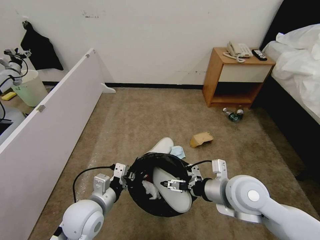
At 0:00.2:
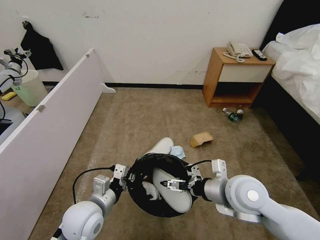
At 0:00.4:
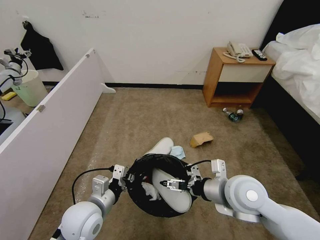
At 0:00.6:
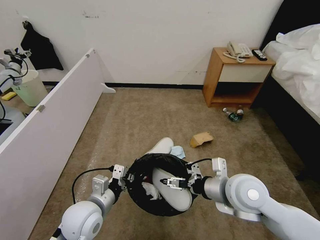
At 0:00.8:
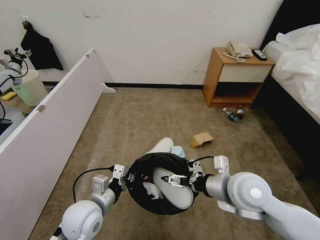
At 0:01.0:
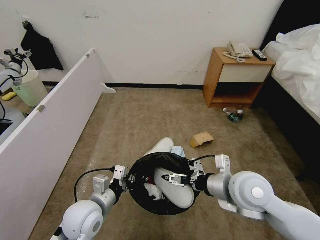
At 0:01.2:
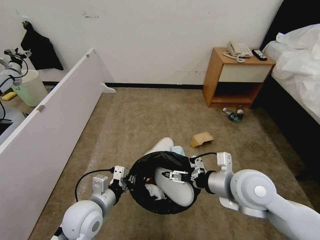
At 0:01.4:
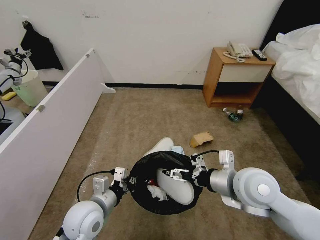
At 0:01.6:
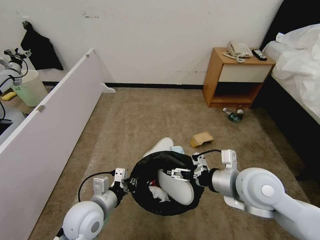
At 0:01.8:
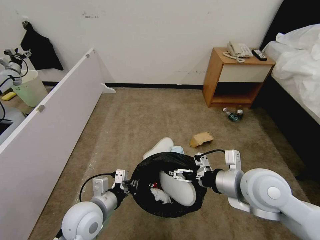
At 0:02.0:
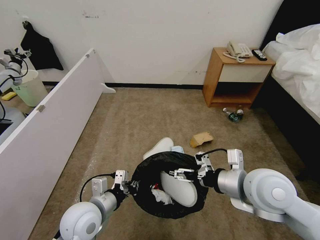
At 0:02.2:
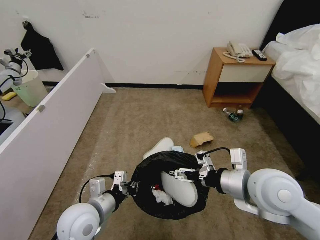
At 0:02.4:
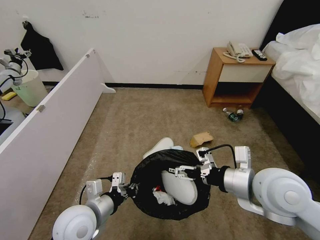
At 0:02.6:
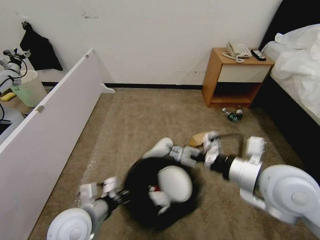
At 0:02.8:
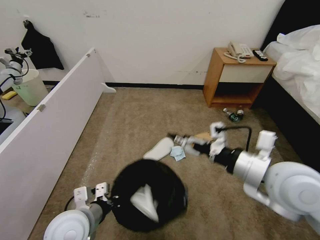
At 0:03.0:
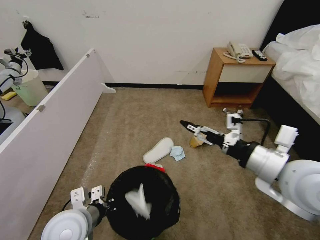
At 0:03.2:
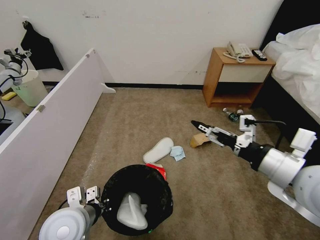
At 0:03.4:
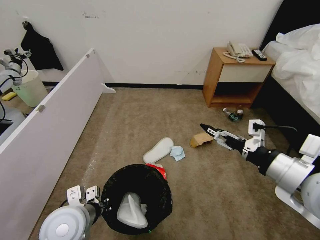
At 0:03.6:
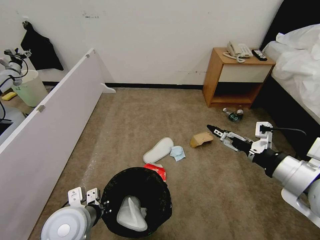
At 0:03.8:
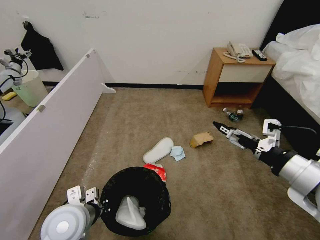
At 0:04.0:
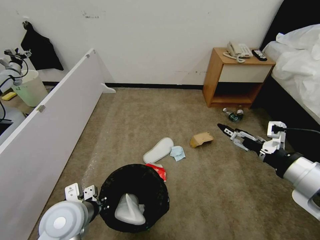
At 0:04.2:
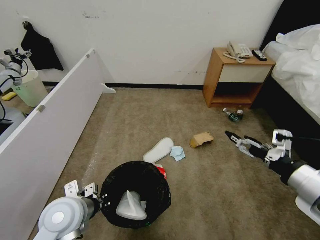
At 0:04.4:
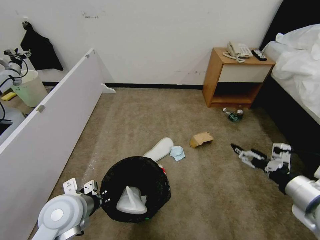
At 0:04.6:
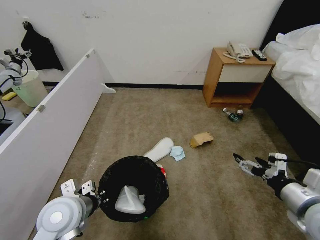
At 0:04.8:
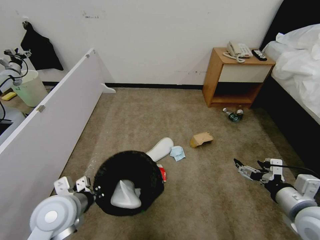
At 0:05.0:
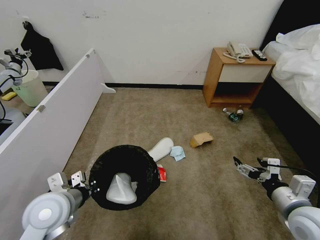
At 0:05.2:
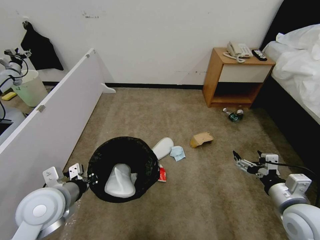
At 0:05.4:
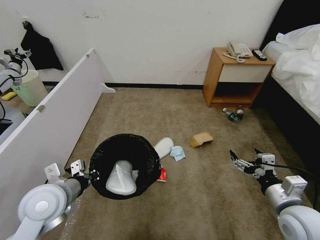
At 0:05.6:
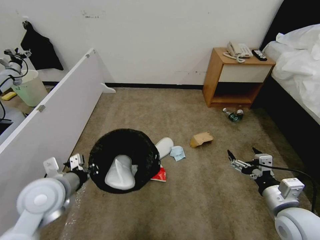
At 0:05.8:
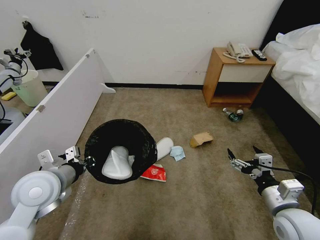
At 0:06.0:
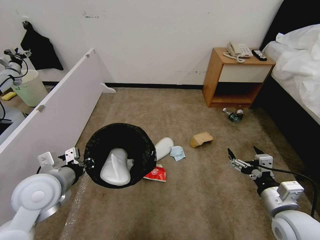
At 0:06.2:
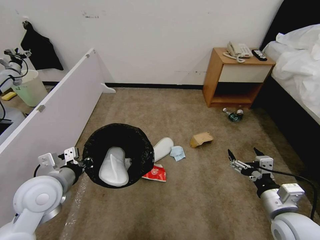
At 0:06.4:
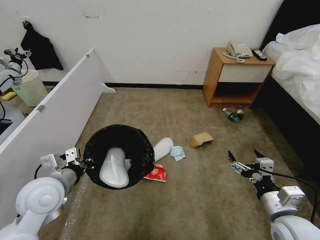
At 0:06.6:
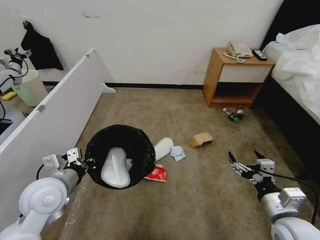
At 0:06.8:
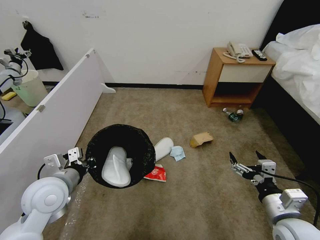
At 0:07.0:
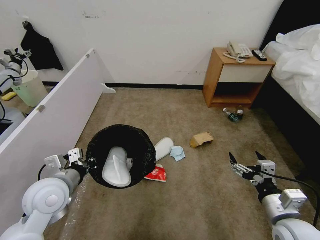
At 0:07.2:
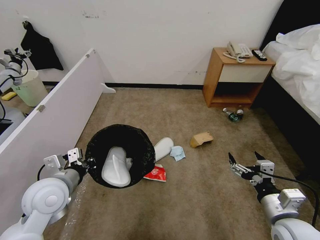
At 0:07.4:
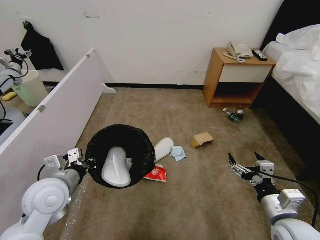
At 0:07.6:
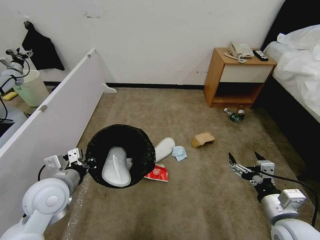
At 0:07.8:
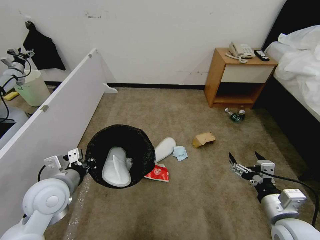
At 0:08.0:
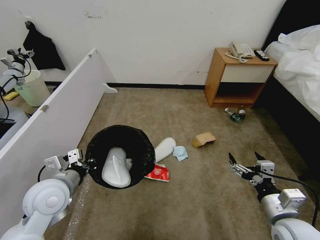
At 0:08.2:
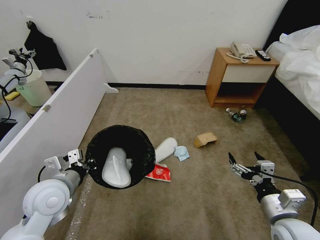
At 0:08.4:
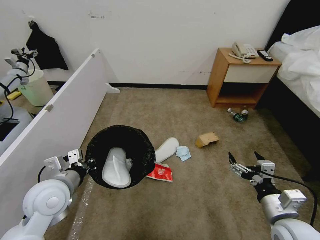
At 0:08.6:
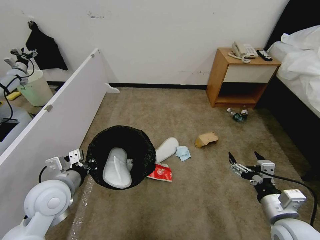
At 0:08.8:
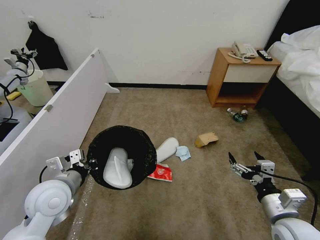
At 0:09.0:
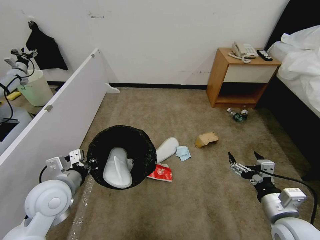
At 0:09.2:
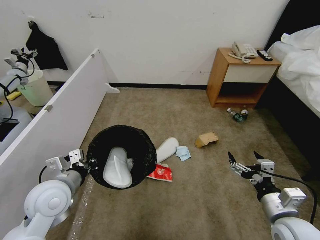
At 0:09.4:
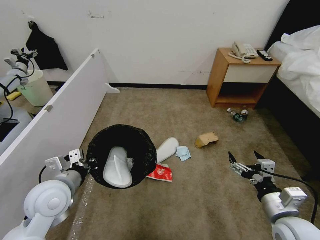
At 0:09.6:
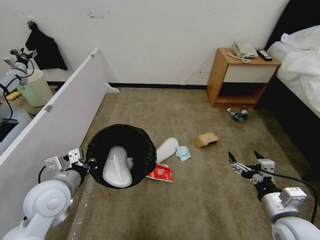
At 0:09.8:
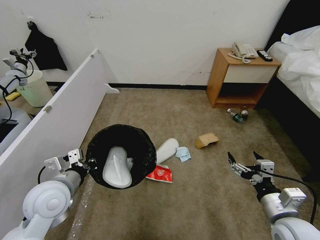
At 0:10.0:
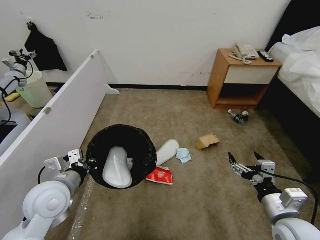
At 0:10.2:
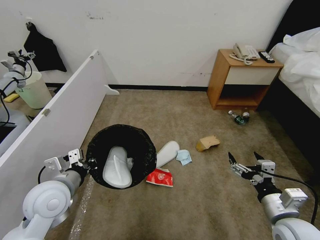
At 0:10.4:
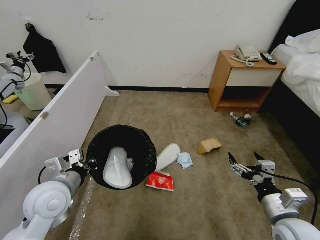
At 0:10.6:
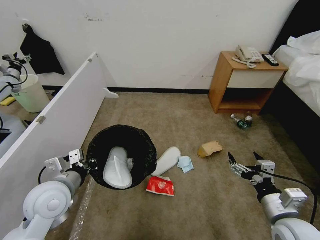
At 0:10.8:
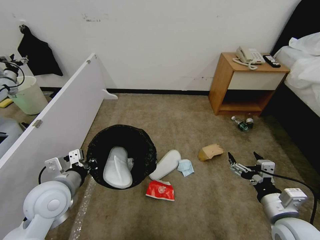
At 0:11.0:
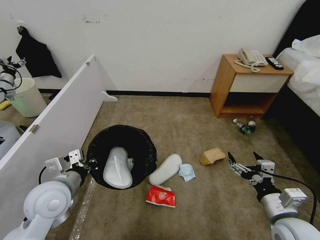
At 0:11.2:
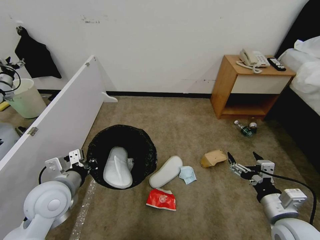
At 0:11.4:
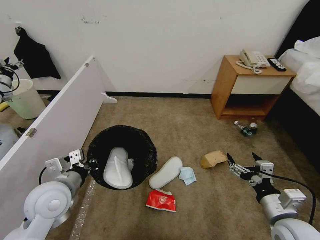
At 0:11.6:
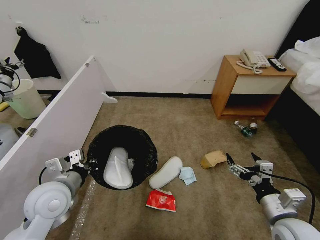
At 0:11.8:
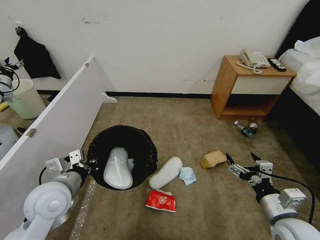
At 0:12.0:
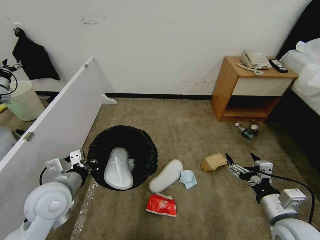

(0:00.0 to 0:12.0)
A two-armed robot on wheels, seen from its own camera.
Task of the whole recording: Pick up the trash bin, then pick up the garbage from the floor and place it into the trash bin.
0:00.0 - 0:01.6: The grippers stay close to where they were, moving slightly.
0:01.6 - 0:03.0: The right gripper heads upward, covering roughly 10 cm.
0:03.0 - 0:04.4: The right gripper heads to the right and backward, covering about 10 cm.
0:04.4 - 0:06.0: The left gripper travels upward and to the left by approximately 5 cm; the right gripper heads downward, covering roughly 10 cm.
0:06.0 - 0:07.6: The grippers make only small movements.
0:07.6 - 0:10.4: The two grippers keep their place.

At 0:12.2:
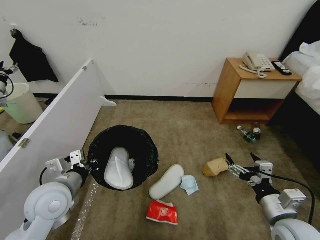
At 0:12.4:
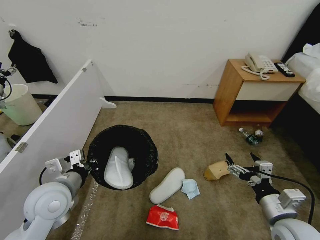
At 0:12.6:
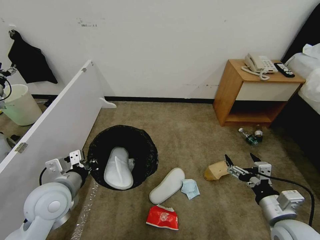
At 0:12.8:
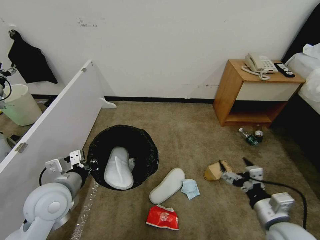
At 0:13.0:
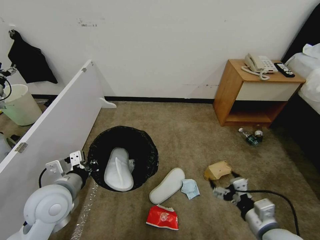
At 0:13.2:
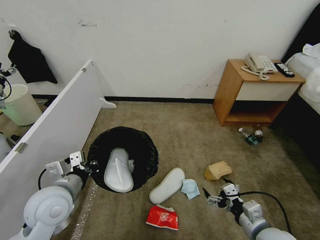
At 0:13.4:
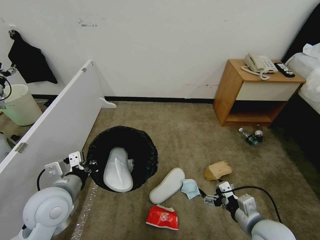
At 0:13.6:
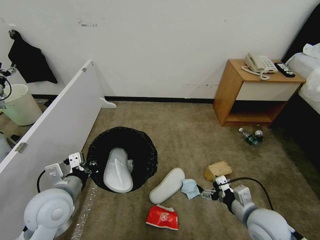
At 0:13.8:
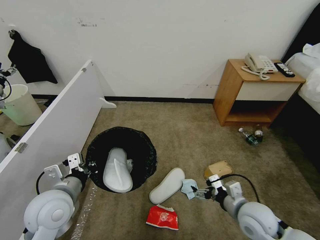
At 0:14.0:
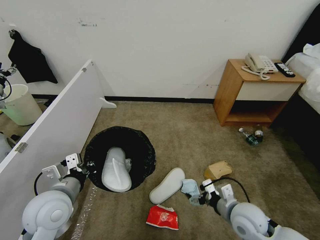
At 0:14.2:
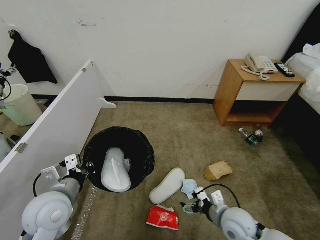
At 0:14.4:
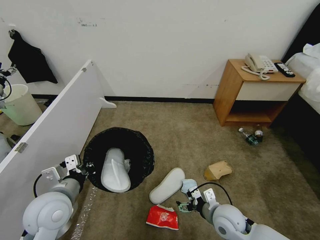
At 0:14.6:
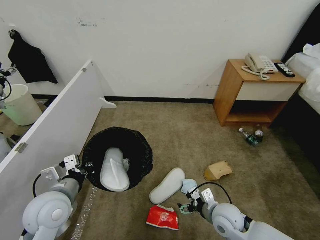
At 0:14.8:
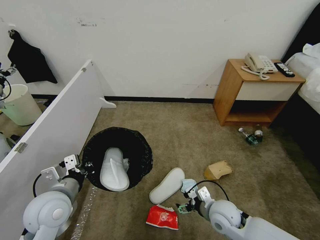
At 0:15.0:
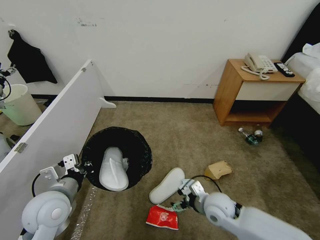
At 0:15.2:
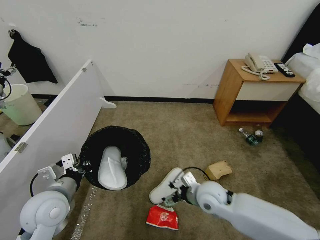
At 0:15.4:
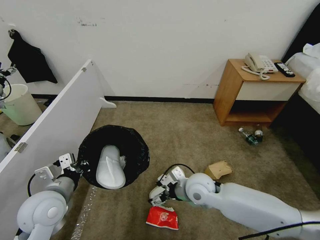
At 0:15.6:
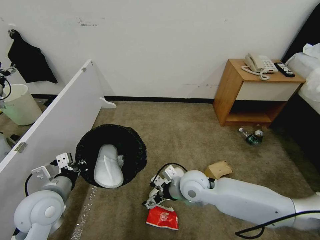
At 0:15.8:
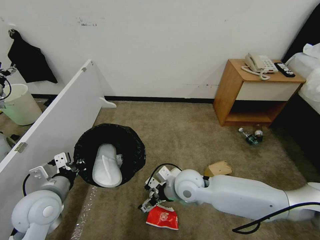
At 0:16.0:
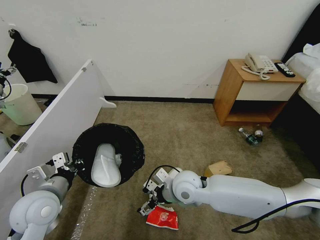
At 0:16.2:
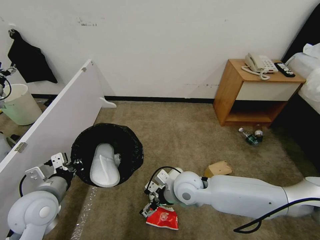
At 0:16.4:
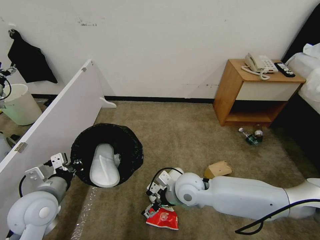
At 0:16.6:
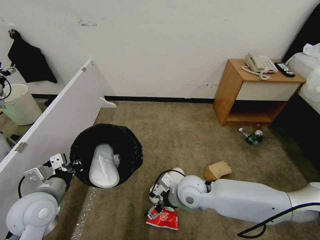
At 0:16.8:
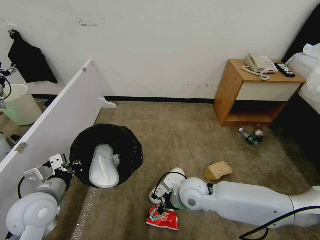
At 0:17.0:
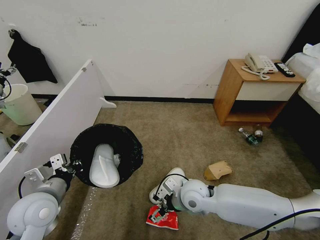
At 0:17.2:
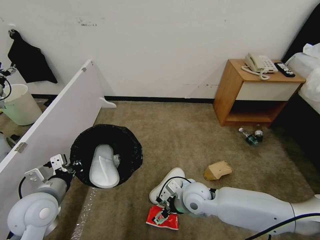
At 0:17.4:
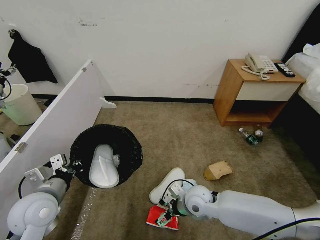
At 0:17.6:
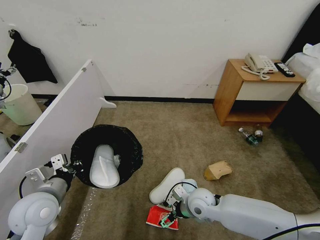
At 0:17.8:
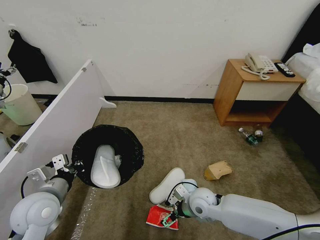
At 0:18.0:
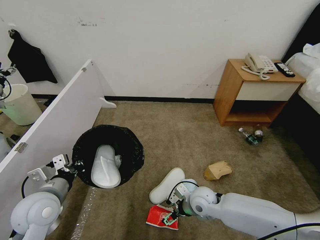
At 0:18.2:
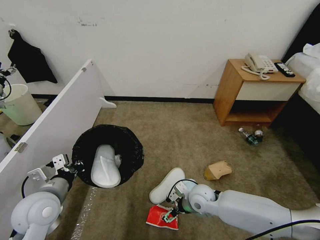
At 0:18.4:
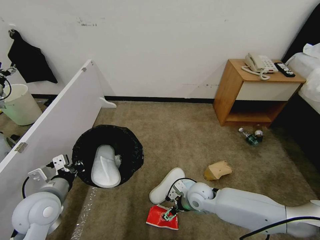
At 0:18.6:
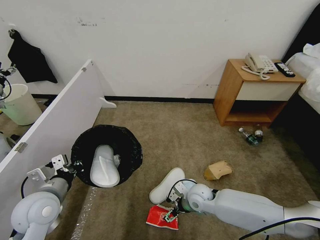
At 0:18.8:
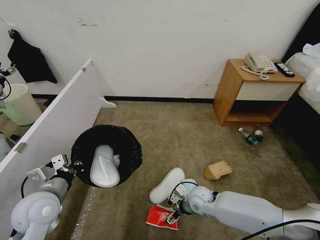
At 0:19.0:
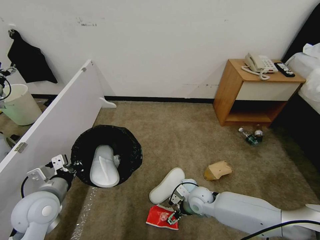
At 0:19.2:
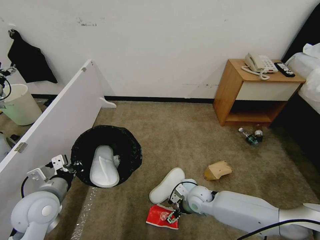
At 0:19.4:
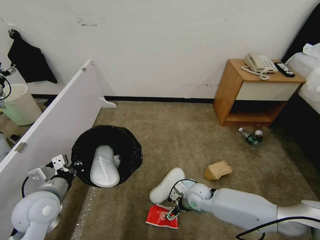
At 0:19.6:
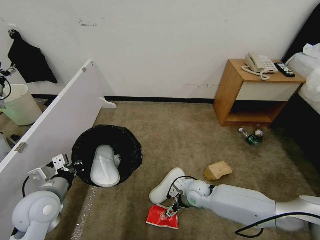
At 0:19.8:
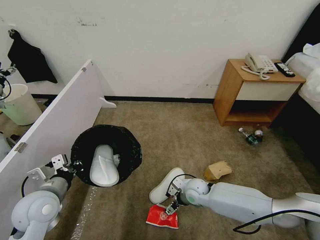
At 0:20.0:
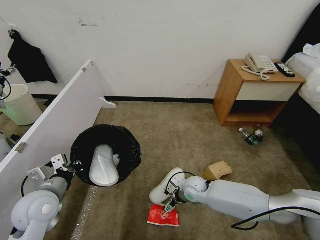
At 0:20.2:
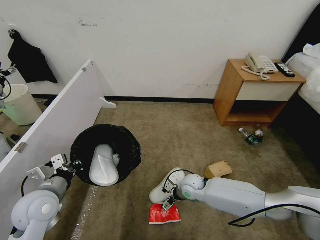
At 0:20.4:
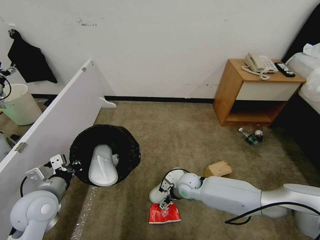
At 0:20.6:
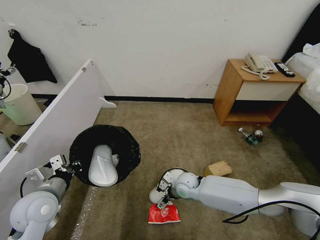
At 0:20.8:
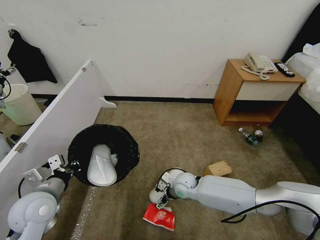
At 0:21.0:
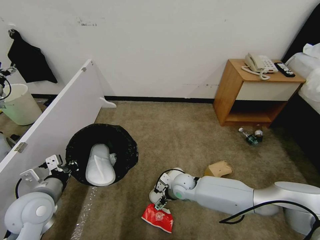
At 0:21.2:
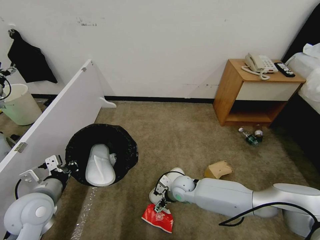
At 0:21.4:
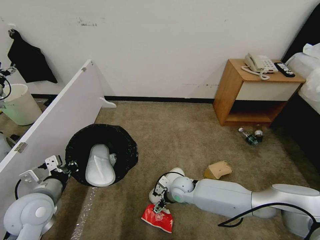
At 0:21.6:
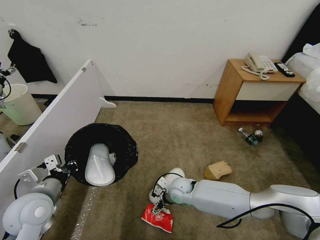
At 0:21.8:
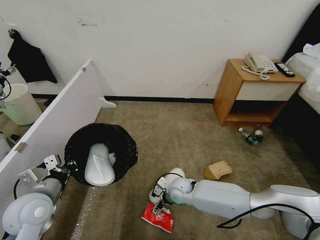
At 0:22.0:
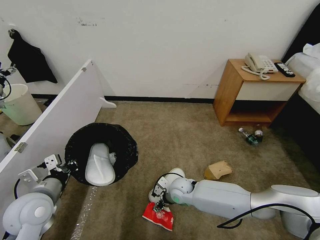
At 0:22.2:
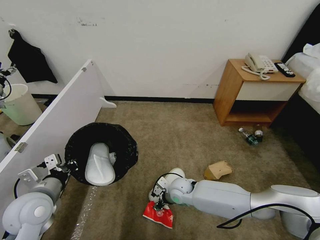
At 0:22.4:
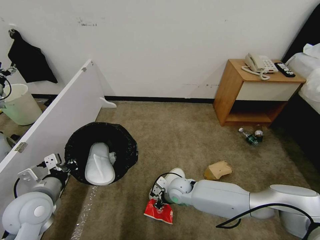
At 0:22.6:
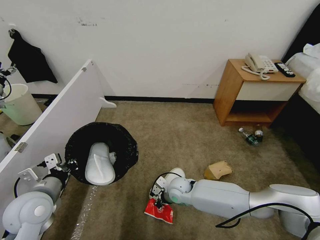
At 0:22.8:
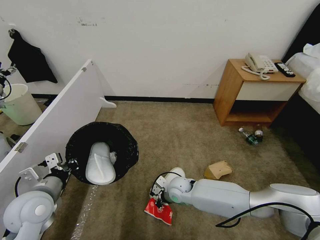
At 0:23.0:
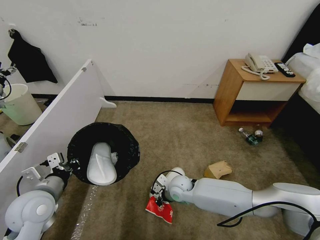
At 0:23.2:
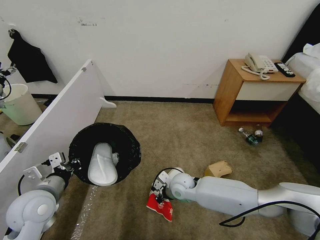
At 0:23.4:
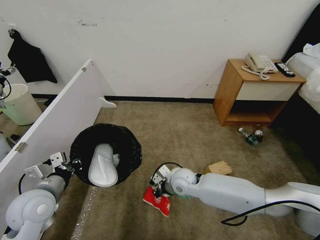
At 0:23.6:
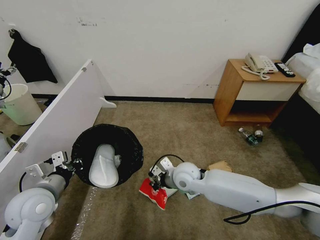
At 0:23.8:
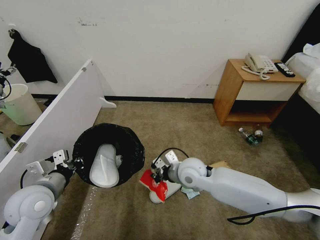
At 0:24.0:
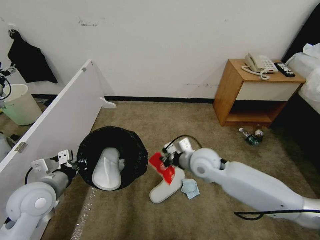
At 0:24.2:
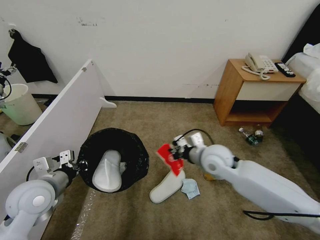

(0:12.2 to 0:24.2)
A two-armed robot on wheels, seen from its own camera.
Task of the whole recording: Pick up the trash bin, then pick up the garbage from the floor and place it into the trash bin.
0:12.2 - 0:13.8: The right gripper travels forward and downward by about 10 cm.
0:13.8 - 0:15.2: The right gripper shifts some 15 cm to the left and forward.
0:15.2 - 0:16.6: The right gripper goes roughly 5 cm to the left.
0:16.6 - 0:18.2: The right gripper shifts roughly 10 cm downward and to the right.
0:18.2 - 0:19.8: The right gripper moves approximately 5 cm.
0:19.8 - 0:21.2: The right gripper travels to the left by about 5 cm.
0:21.2 - 0:22.6: The right gripper closes its fingers.
0:22.6 - 0:24.2: The right gripper shifts some 20 cm upward and to the right.
